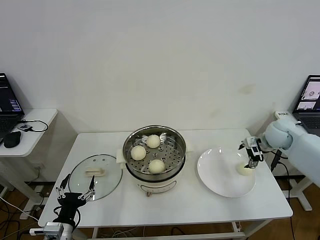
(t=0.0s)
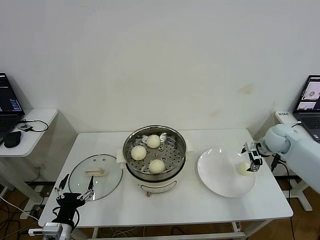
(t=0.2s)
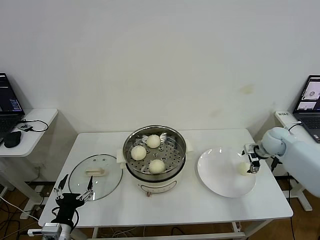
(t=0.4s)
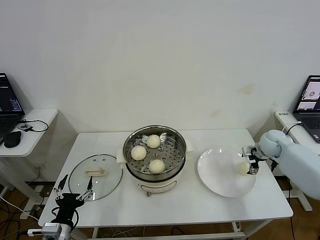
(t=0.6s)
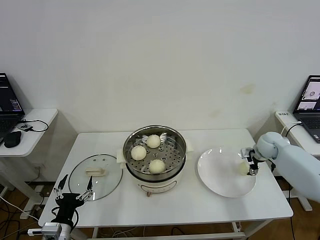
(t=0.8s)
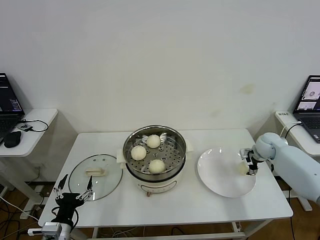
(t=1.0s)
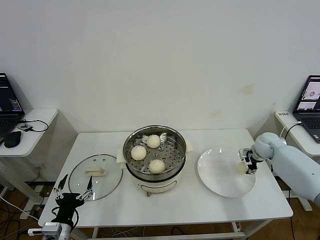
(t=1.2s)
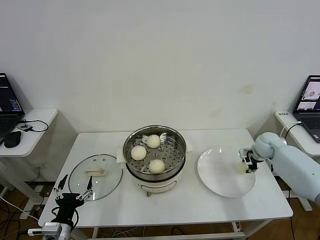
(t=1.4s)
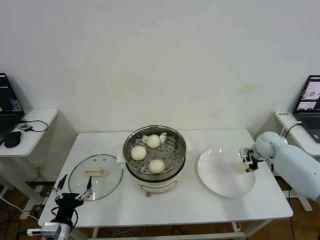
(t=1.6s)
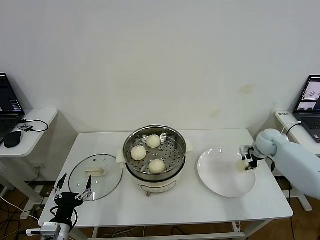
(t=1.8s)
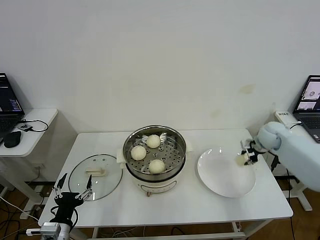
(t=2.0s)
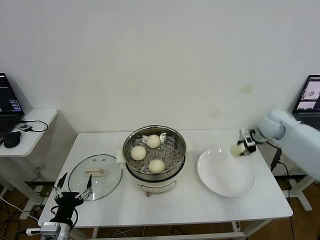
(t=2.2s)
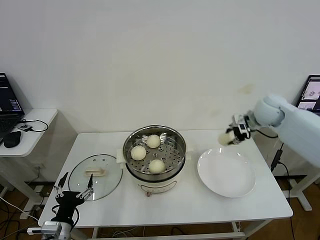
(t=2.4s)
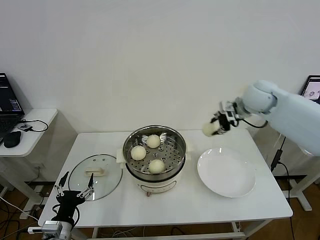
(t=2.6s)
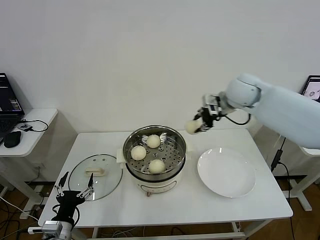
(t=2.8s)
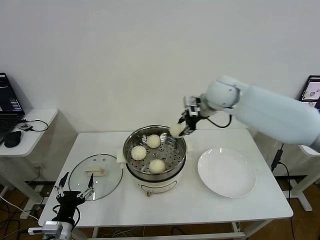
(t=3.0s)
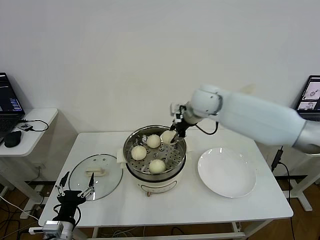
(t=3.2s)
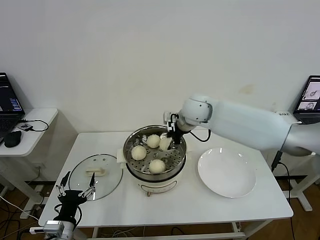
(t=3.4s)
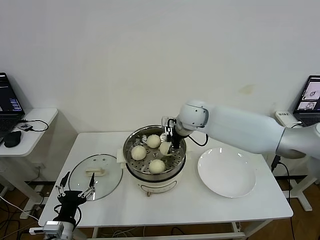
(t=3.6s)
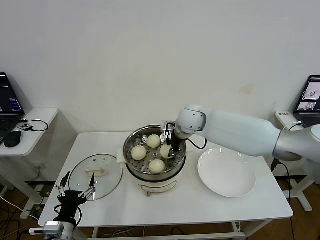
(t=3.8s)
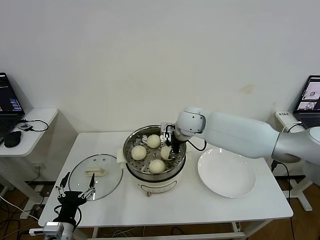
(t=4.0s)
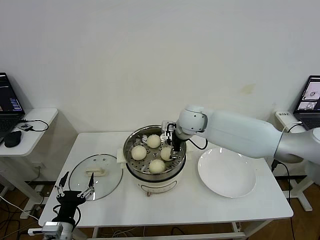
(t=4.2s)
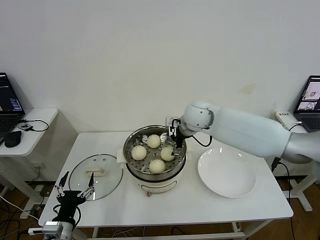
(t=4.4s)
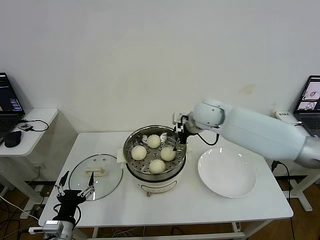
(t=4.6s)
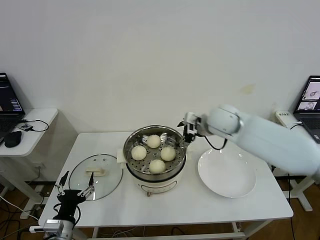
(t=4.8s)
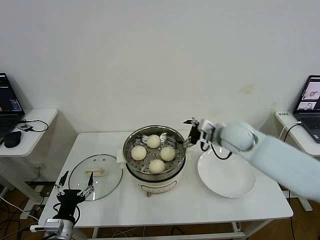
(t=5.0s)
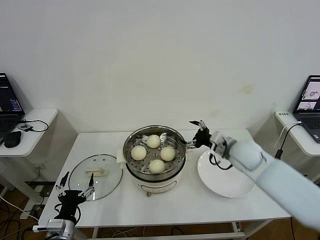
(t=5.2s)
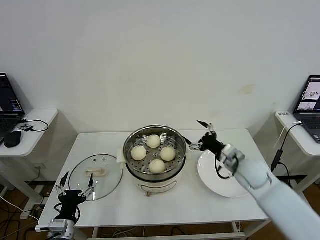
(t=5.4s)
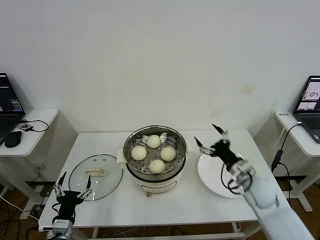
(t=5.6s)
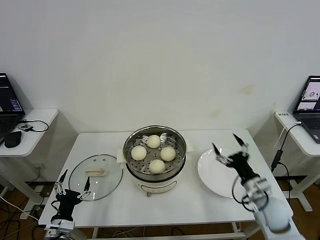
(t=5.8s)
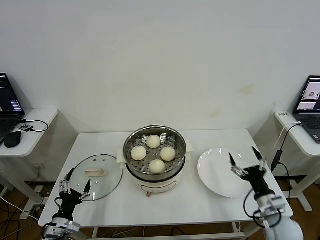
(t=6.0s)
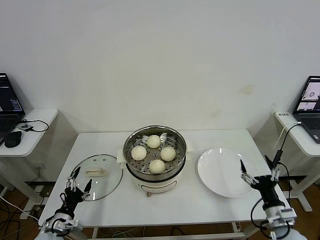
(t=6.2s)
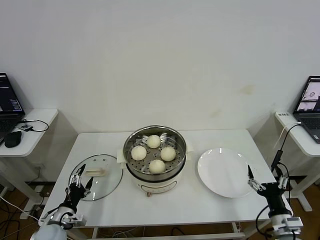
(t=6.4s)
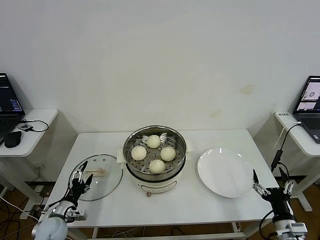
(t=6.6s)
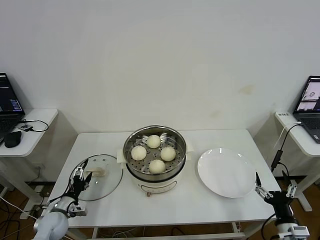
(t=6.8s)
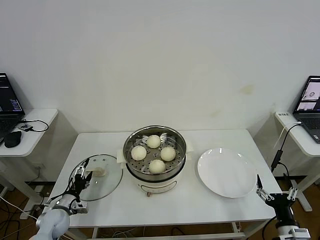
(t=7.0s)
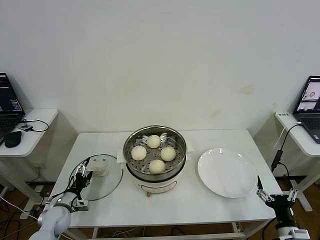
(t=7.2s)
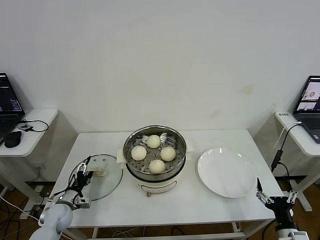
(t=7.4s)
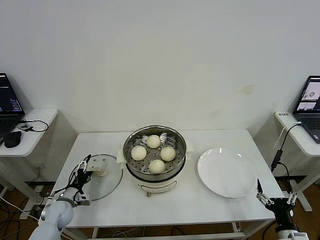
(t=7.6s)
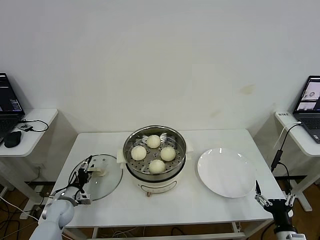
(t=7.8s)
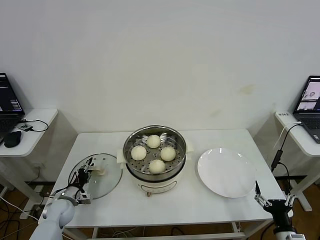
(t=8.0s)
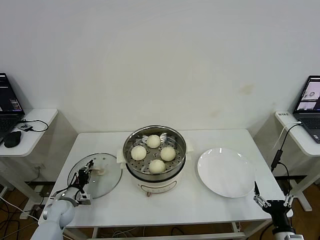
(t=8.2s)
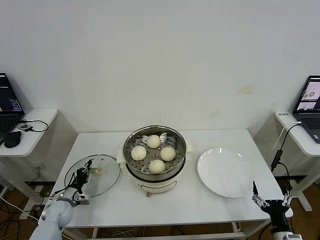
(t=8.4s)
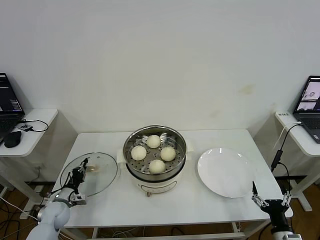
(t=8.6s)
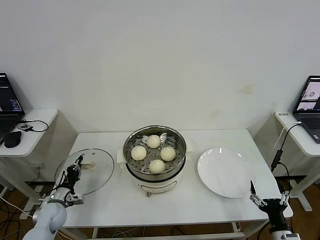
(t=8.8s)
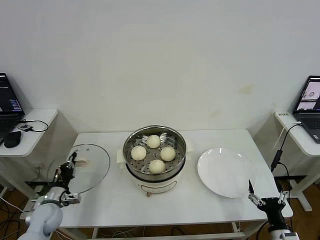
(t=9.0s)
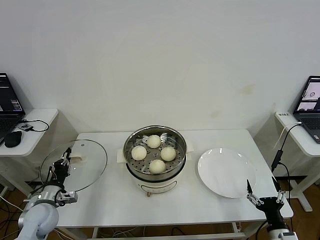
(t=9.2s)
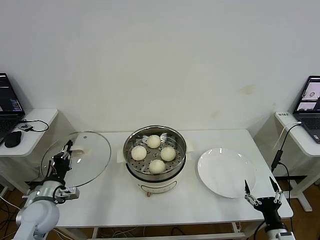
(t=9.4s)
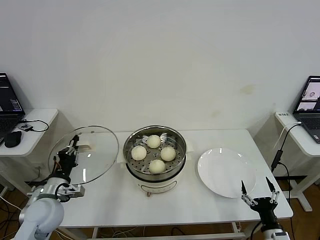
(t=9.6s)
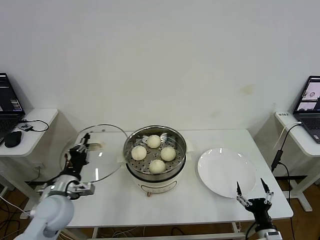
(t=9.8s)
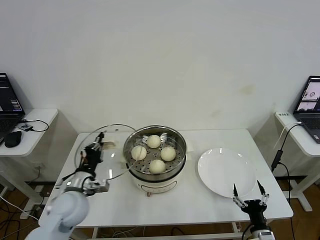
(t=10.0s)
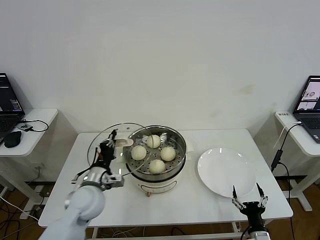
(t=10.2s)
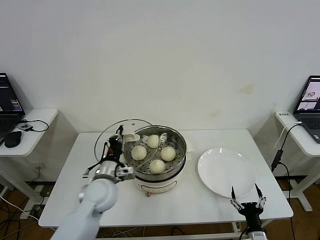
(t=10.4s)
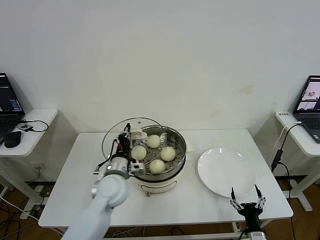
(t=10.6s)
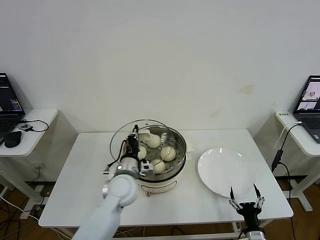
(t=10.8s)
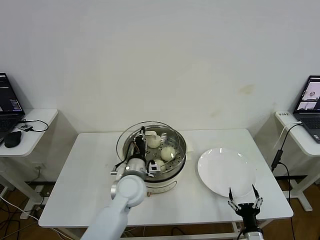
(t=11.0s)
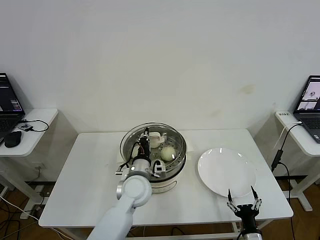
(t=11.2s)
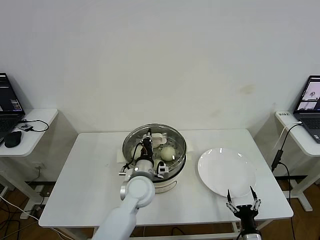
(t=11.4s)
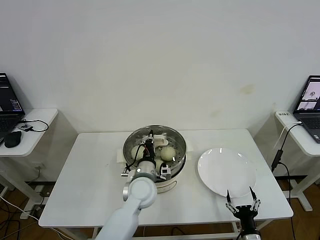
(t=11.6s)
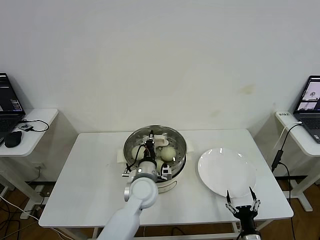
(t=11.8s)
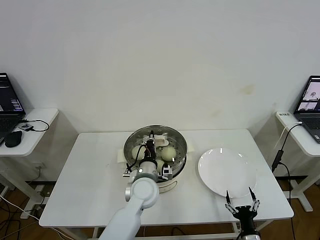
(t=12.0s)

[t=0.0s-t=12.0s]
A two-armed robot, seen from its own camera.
Step, t=1.8s to t=4.2s: Place the baozi on the steamer with right gripper.
Step, t=4.4s to t=8.2s: Grasp the pot lid with left gripper.
t=0.0s to t=1.6s: The right gripper travels downward by some 10 cm, and closes.
t=1.6s to t=3.0s: The right gripper moves to the left and upward, about 35 cm.
t=3.0s to t=4.4s: The right gripper goes roughly 10 cm downward and to the left, and opens.
t=4.4s to t=6.0s: The right gripper travels backward, to the right and downward by approximately 40 cm, while the left gripper travels downward by roughly 5 cm.
t=6.0s to t=7.6s: The left gripper is displaced forward by about 15 cm. The right gripper is displaced backward by some 10 cm.
t=7.6s to t=9.0s: The left gripper changes place by about 5 cm, and closes up.
t=9.0s to t=10.4s: The left gripper travels to the right and upward by about 25 cm. Meanwhile the right gripper heads to the left, covering about 5 cm.
t=10.4s to t=12.0s: The left gripper shifts about 15 cm to the right.

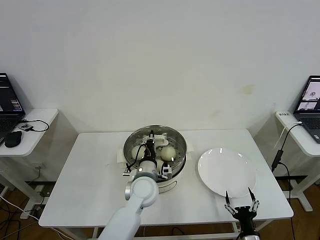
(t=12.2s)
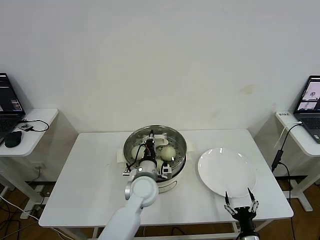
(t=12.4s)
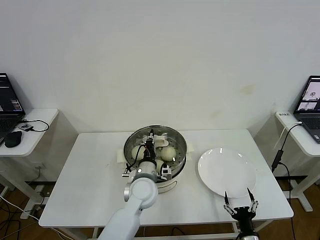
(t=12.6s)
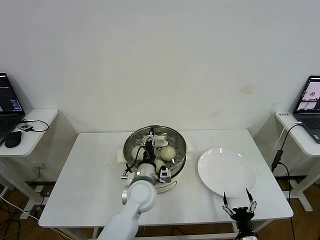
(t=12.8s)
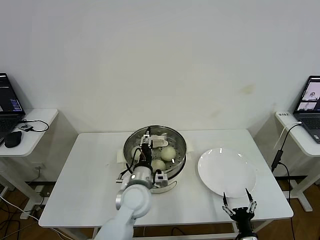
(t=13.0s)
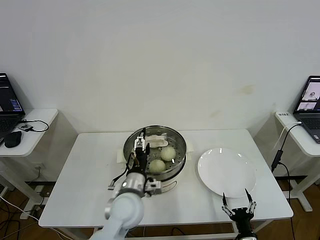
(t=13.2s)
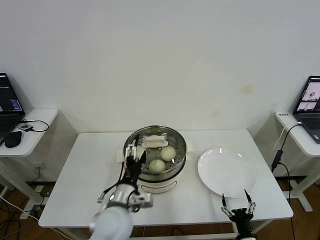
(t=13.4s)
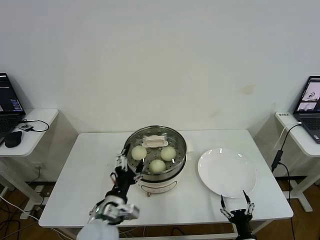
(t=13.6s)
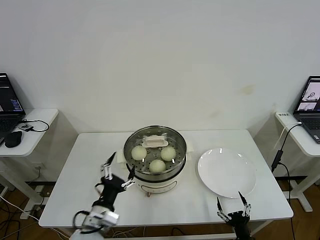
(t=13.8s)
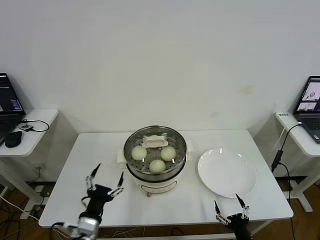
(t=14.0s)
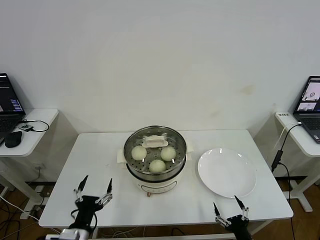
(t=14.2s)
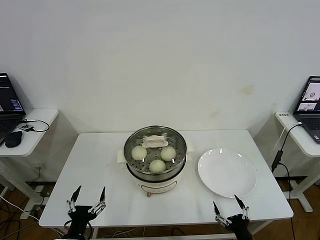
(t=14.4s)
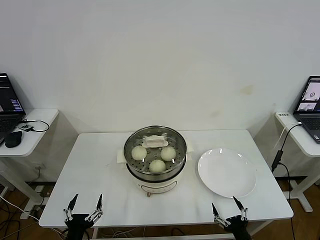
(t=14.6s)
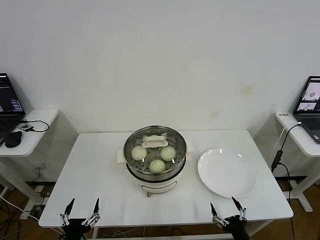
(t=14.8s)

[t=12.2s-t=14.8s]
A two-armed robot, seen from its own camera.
t=12.2s to t=13.4s: The left gripper goes roughly 10 cm backward and to the left, and opens its fingers.
t=13.4s to t=14.8s: The right gripper moves upward, roughly 5 cm, while the left gripper travels backward, to the left and downward by about 25 cm.
